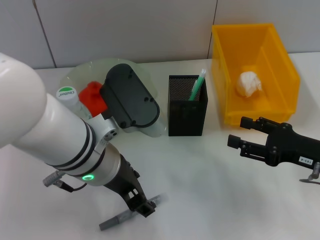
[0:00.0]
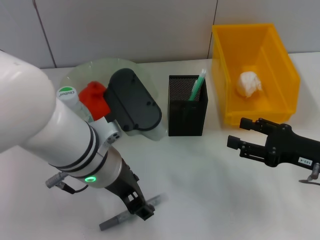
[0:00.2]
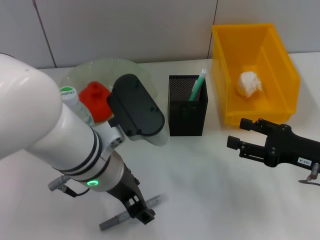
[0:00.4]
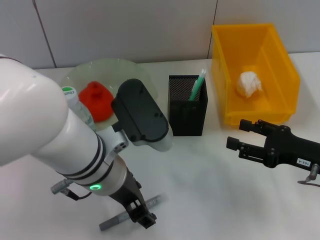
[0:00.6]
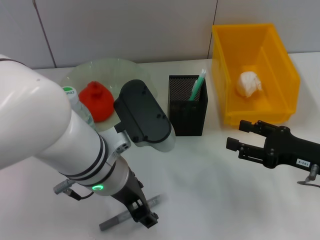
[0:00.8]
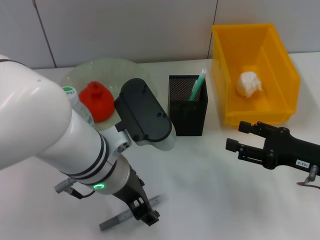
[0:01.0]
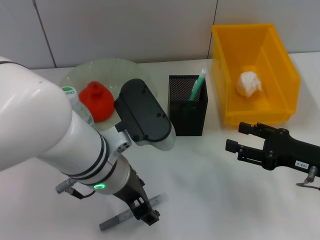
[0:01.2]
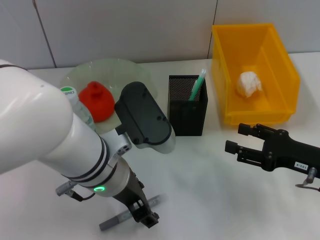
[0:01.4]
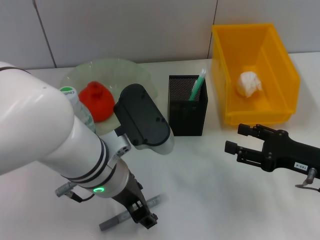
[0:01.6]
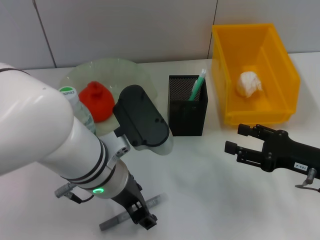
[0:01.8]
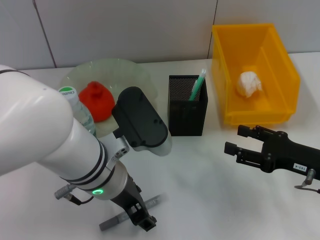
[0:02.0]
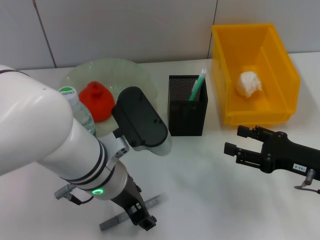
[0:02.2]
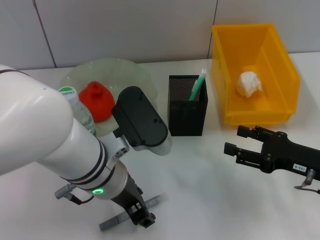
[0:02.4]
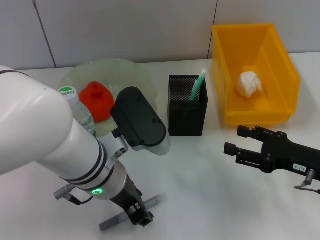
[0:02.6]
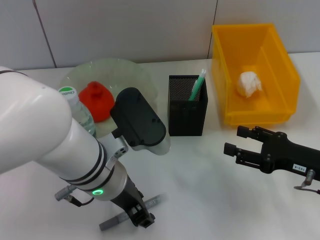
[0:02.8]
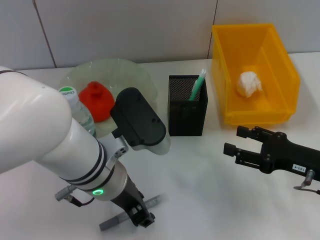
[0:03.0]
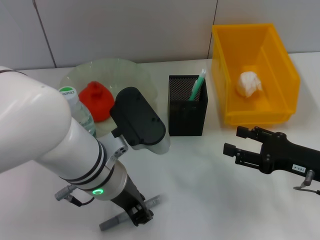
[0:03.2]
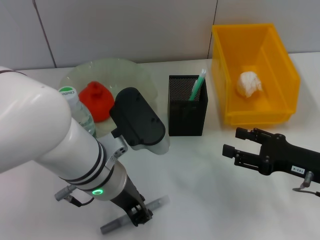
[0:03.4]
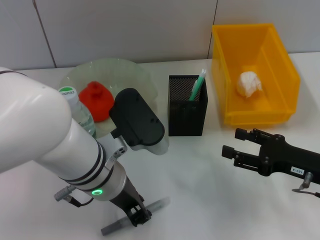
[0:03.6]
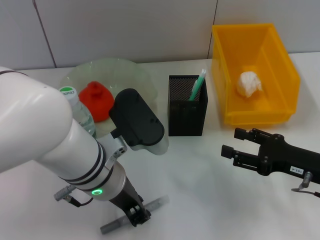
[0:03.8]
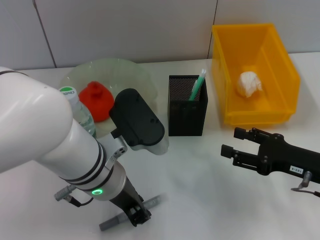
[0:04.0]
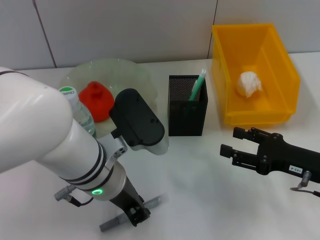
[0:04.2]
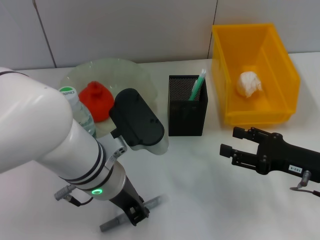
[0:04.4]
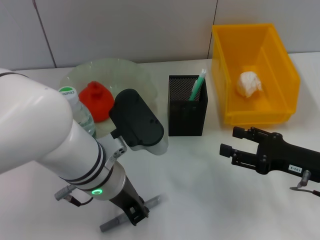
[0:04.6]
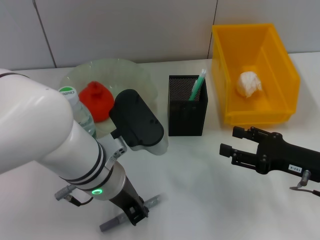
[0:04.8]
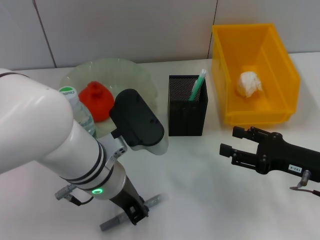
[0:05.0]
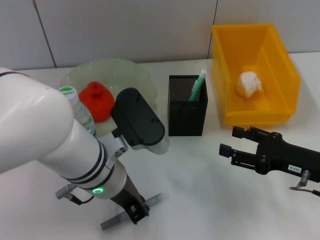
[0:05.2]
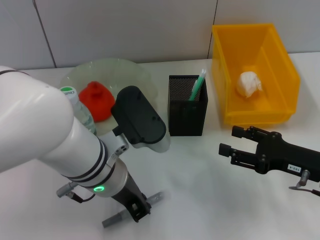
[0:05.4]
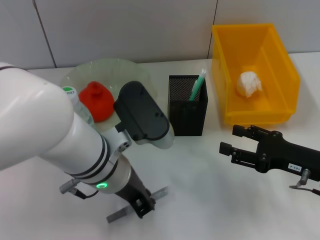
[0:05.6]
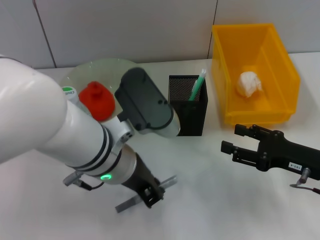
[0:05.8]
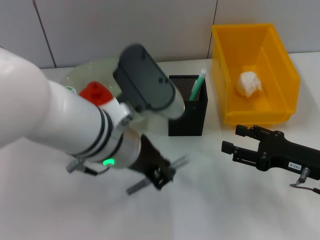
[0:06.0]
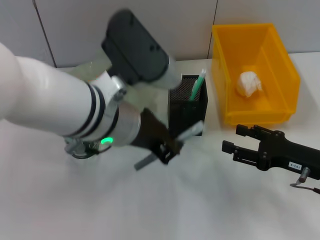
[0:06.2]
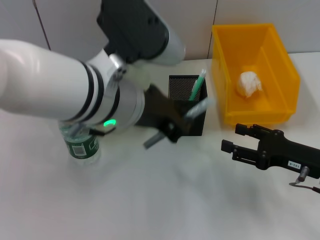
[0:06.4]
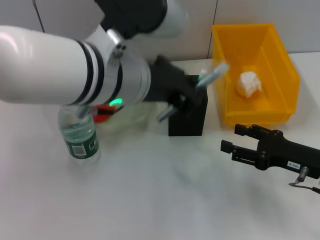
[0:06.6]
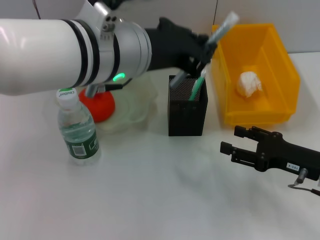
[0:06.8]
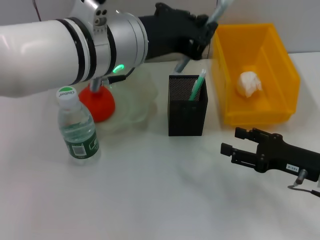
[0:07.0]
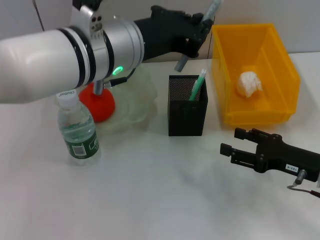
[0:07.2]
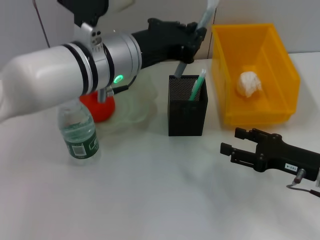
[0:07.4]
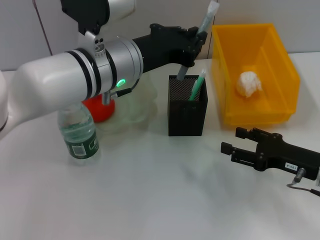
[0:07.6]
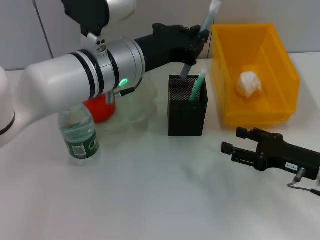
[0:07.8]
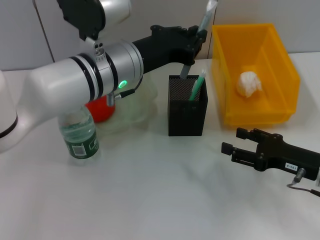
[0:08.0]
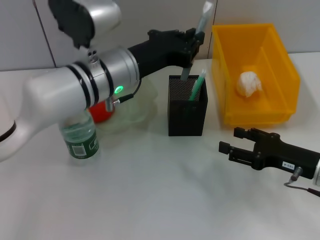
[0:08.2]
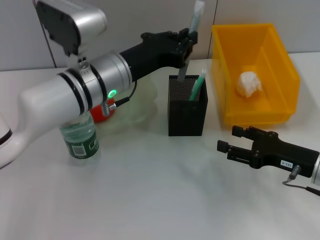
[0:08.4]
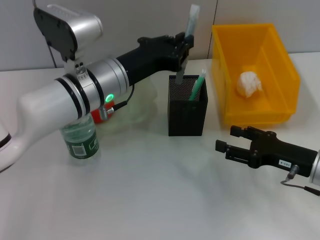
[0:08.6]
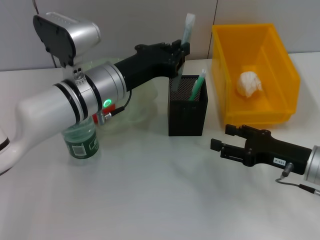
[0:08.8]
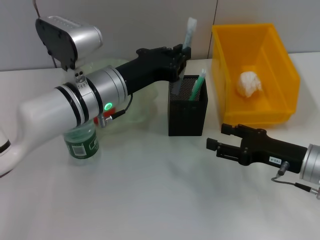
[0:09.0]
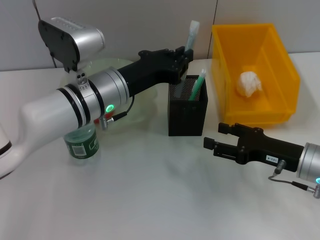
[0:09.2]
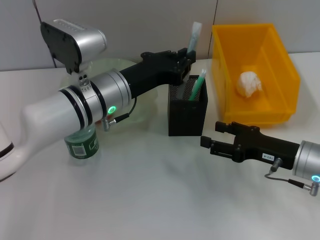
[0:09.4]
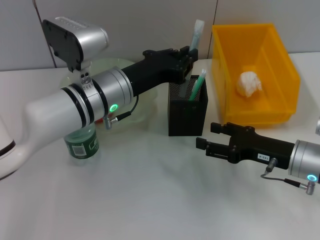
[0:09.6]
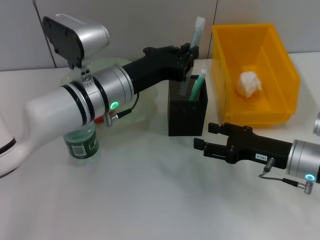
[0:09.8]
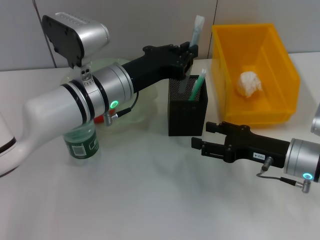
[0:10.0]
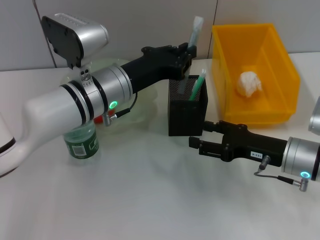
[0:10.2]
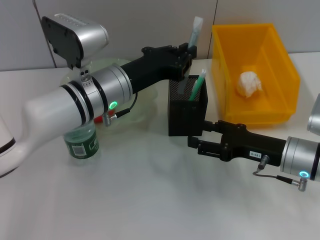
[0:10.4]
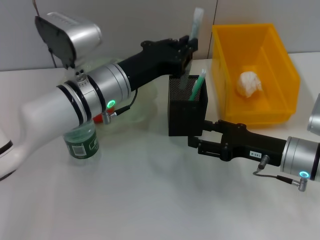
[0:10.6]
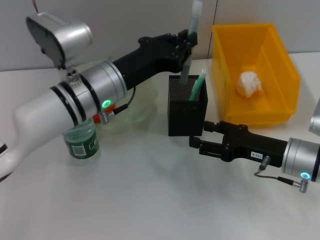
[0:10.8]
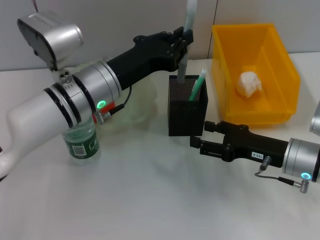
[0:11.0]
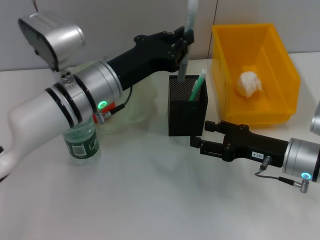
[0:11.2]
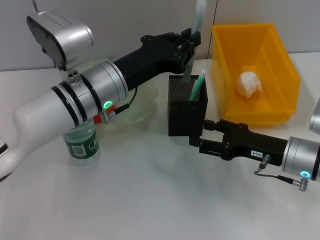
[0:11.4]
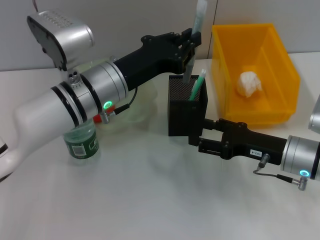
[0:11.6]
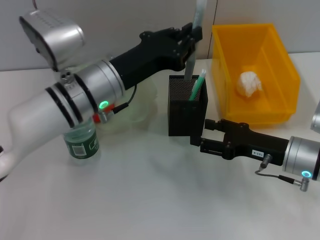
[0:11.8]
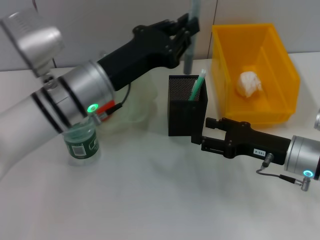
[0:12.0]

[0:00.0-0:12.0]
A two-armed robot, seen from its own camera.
Step, 0:00.0 to 0:05.2: Grab the gray glue with the left hand.
0:00.0 to 0:01.6: The grippers move only a little.
0:01.6 to 0:03.0: The two grippers keep their place.
0:03.0 to 0:04.4: The left gripper closes.
0:04.4 to 0:06.0: The left gripper is displaced upward by some 5 cm.
0:06.0 to 0:07.6: The left gripper is displaced forward by roughly 5 cm, and goes upward and returns, approximately 10 cm each way.
0:07.6 to 0:09.0: The left gripper travels downward by about 5 cm.
0:09.0 to 0:12.0: The grippers make only small movements.

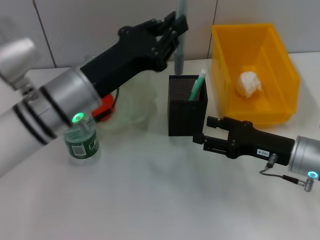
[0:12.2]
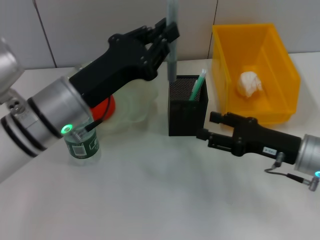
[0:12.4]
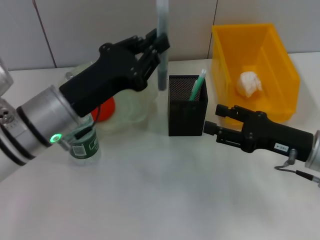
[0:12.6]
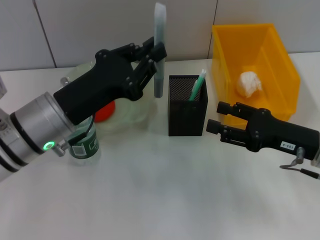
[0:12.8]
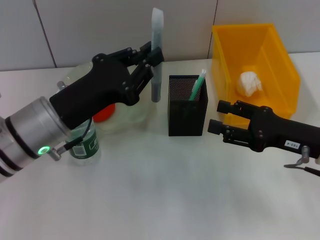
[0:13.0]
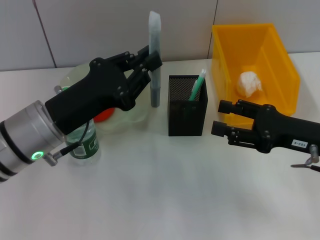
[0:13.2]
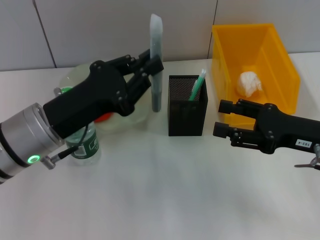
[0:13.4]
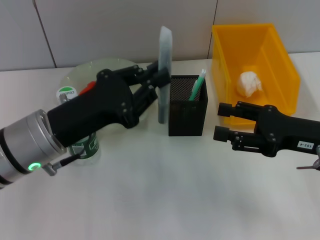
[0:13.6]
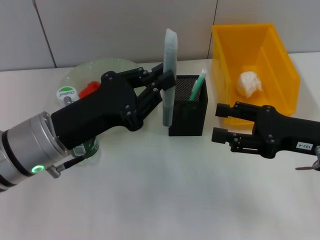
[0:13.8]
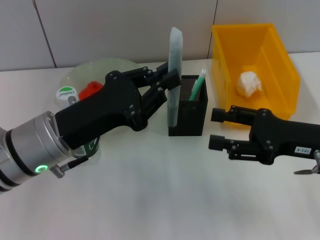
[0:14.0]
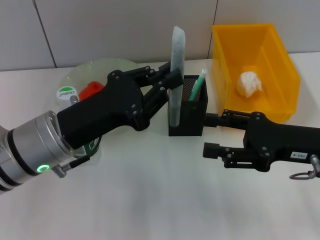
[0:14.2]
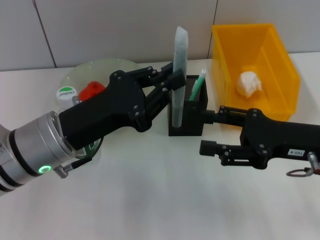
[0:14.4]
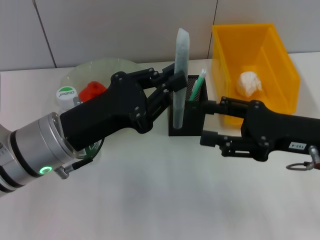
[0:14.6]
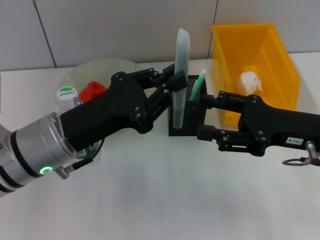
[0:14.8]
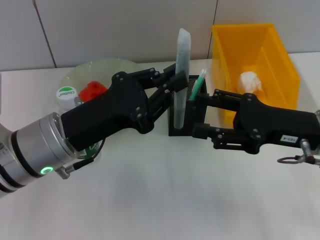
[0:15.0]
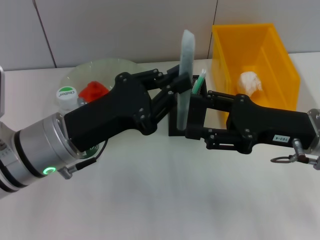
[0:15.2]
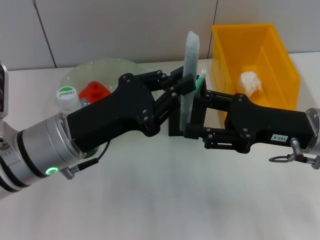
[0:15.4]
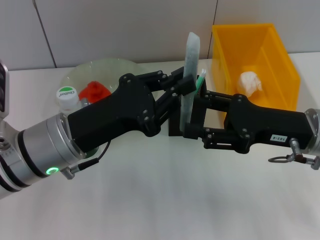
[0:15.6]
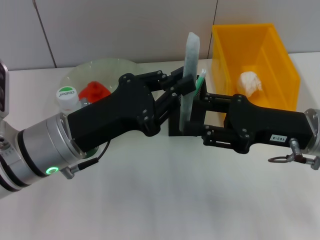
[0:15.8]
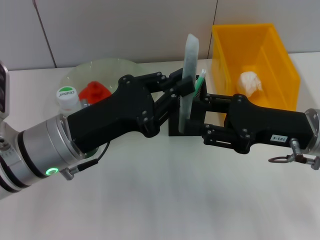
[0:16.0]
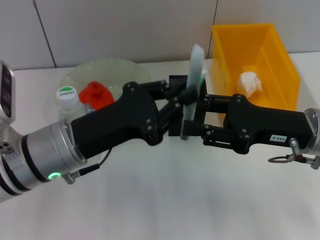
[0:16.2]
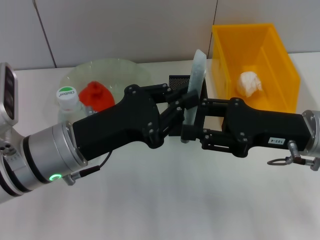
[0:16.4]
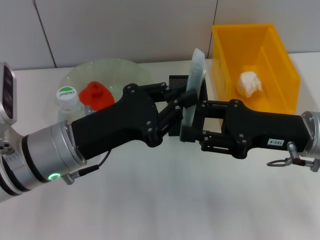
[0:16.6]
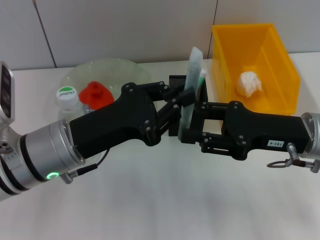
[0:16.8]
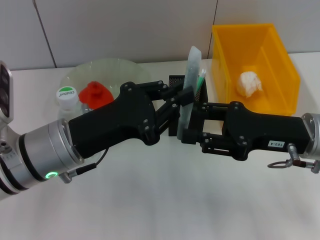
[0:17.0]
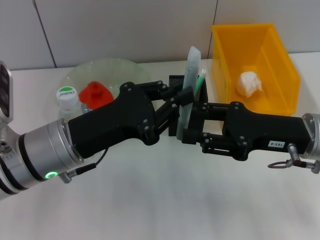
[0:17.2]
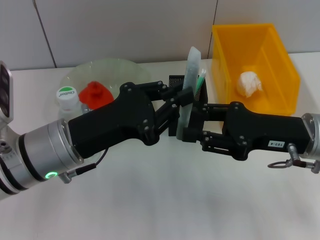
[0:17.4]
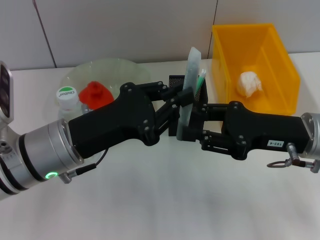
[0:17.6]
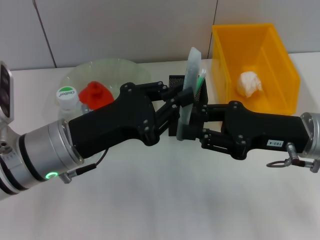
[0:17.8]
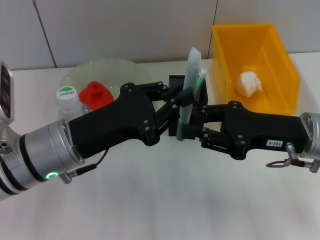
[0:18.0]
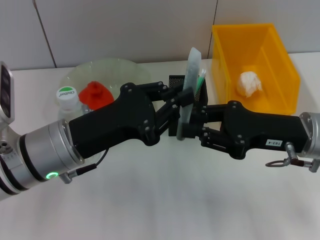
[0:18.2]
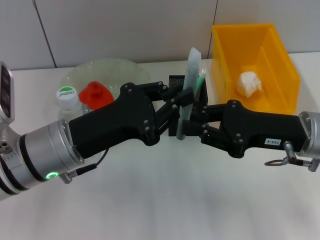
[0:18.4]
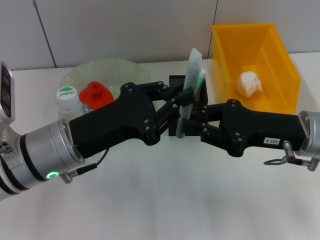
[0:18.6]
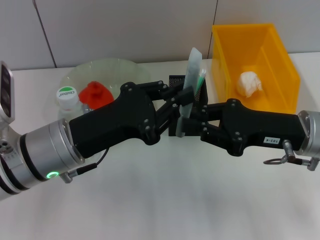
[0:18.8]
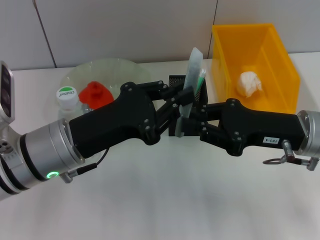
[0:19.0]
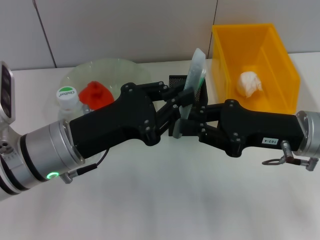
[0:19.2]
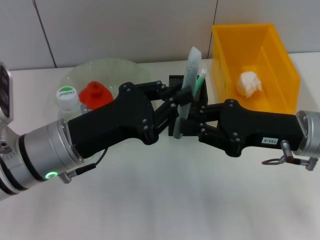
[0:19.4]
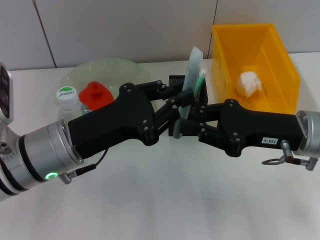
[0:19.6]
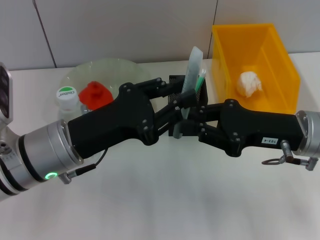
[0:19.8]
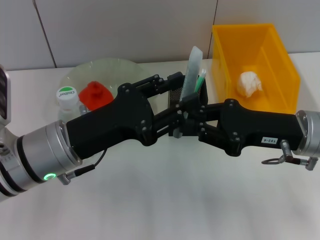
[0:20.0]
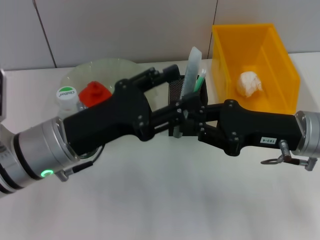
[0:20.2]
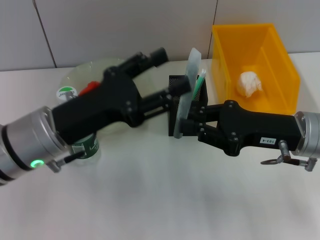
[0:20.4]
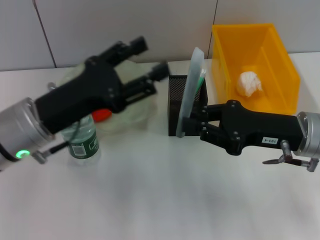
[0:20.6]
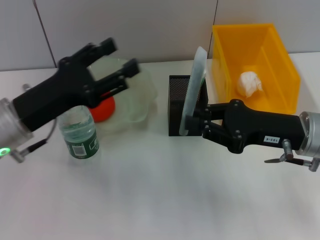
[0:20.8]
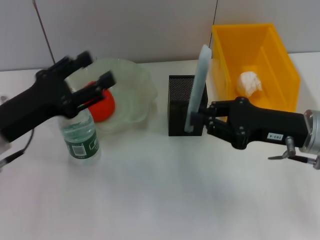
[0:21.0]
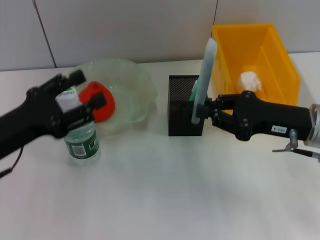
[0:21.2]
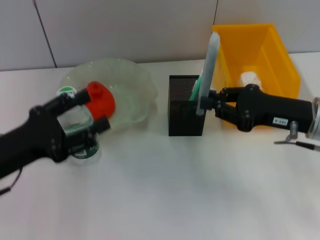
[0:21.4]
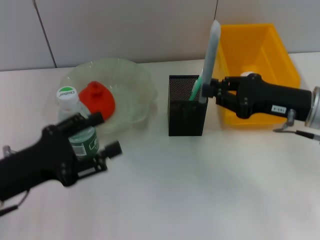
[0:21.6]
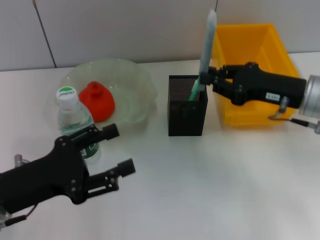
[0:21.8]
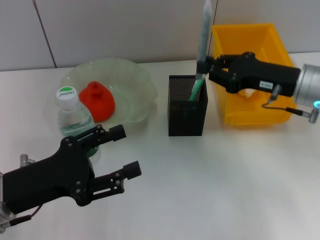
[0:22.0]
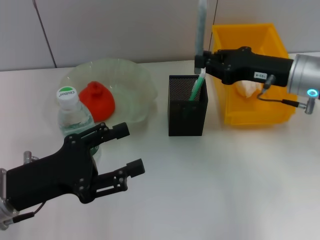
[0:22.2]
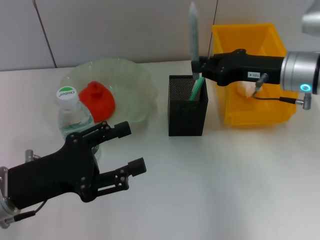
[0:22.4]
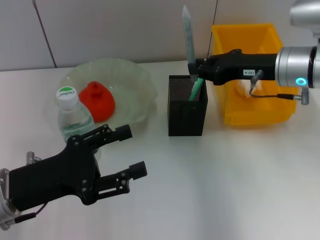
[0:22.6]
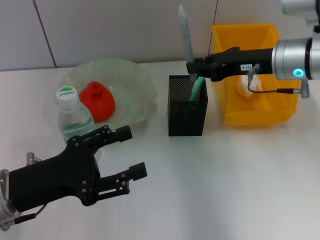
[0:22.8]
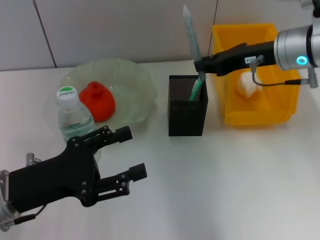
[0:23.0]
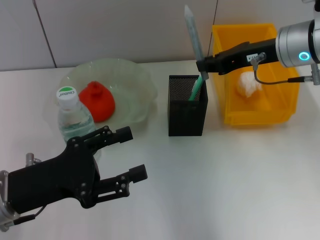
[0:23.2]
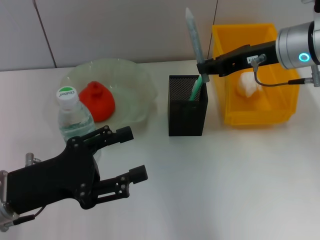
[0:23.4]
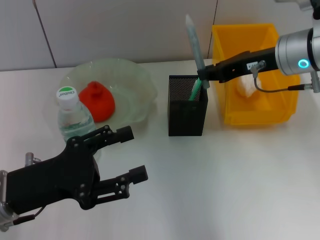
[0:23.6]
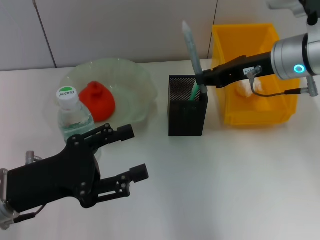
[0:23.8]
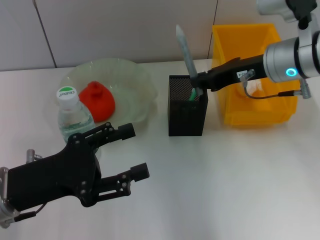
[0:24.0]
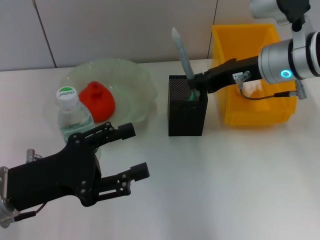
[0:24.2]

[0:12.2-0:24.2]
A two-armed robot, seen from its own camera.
Step, 0:12.2 to 0:20.0: Pass the gray glue from the left hand to the right hand.
0:12.2 to 0:13.8: The left gripper shifts by approximately 5 cm, while the right gripper travels upward by about 5 cm.
0:13.8 to 0:15.2: The grippers move only a little.
0:15.2 to 0:16.6: Neither gripper changes place.
0:16.6 to 0:18.2: The right gripper closes up.
0:18.2 to 0:19.8: Both grippers stay put.
0:19.8 to 0:21.2: The left gripper travels to the left by approximately 10 cm, and opens.
0:21.2 to 0:22.6: The right gripper heads forward, covering some 10 cm.
0:22.6 to 0:24.2: The grippers make only small movements.
